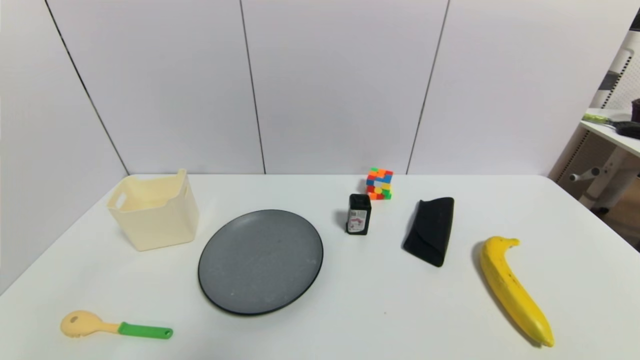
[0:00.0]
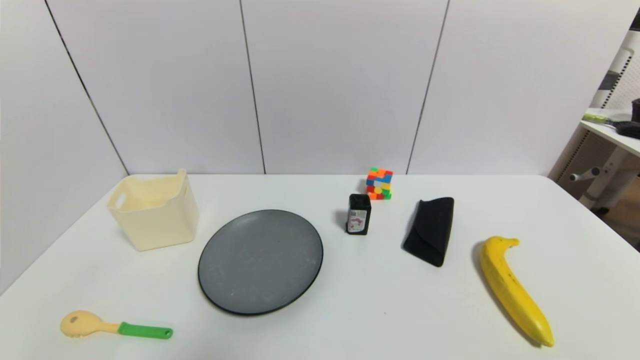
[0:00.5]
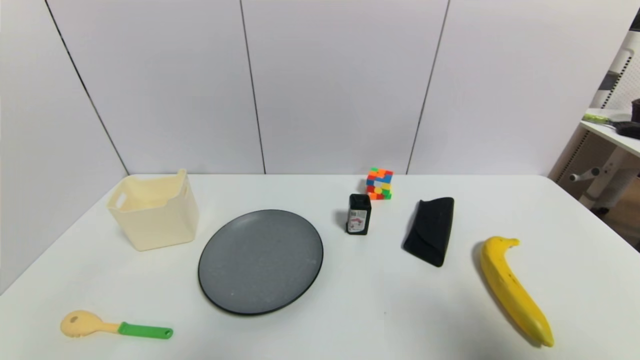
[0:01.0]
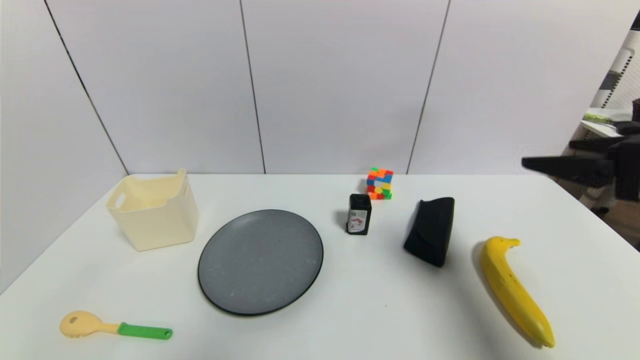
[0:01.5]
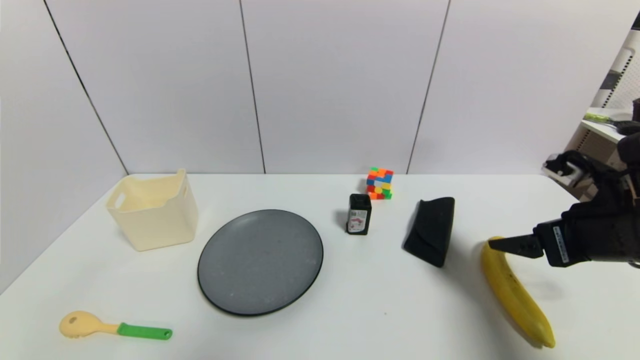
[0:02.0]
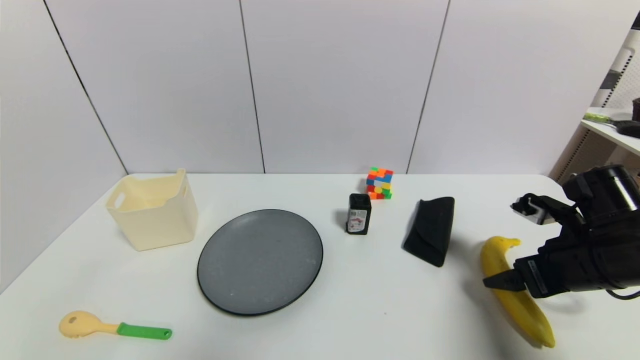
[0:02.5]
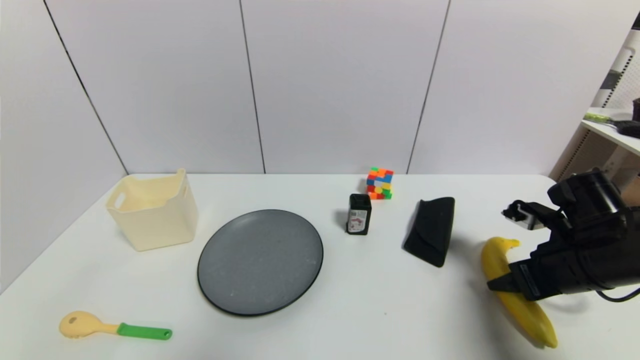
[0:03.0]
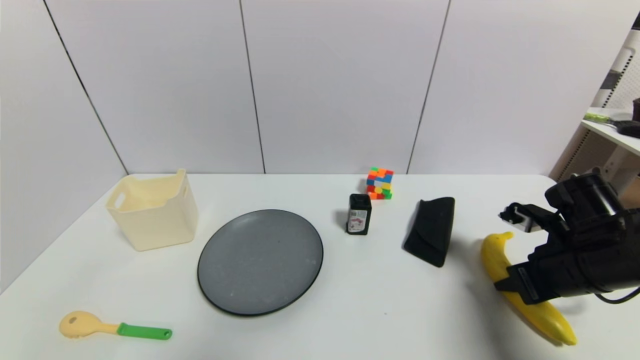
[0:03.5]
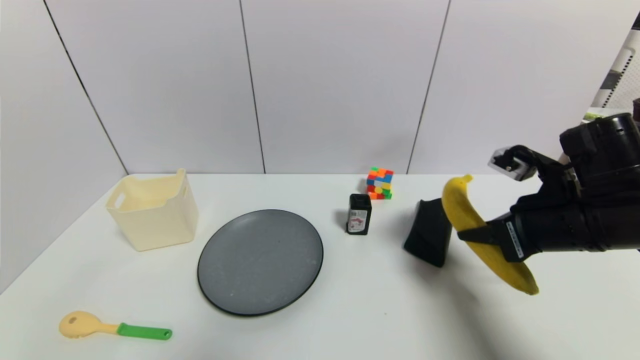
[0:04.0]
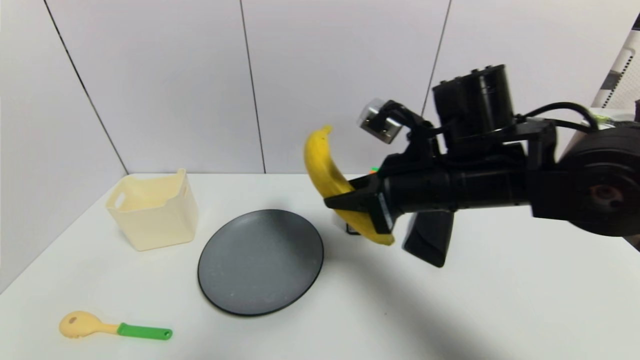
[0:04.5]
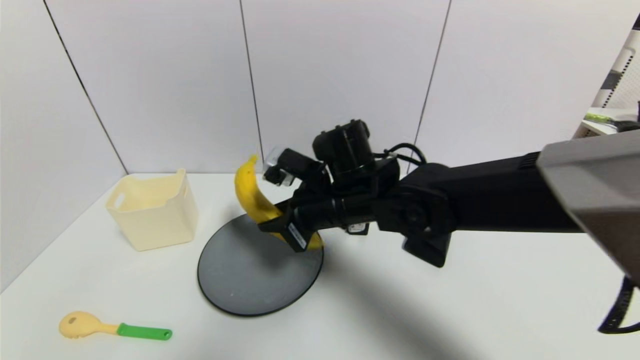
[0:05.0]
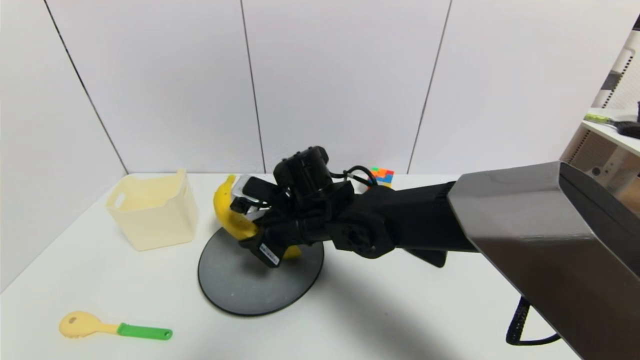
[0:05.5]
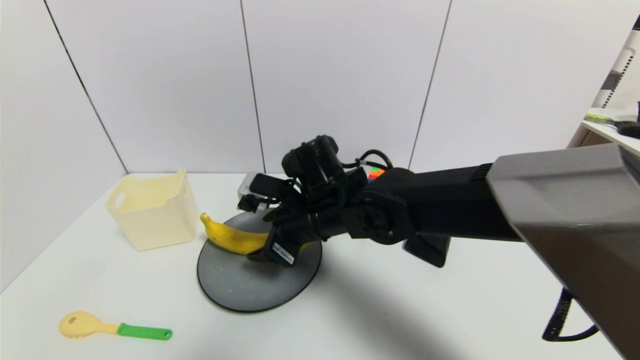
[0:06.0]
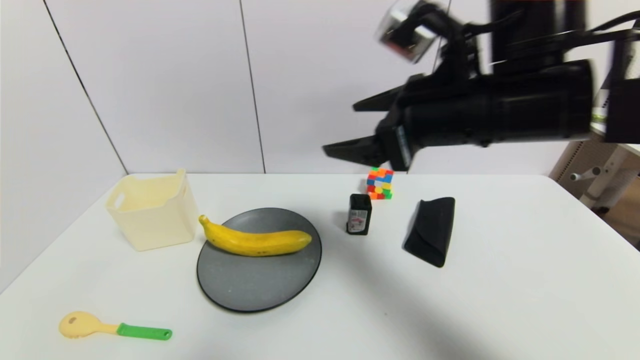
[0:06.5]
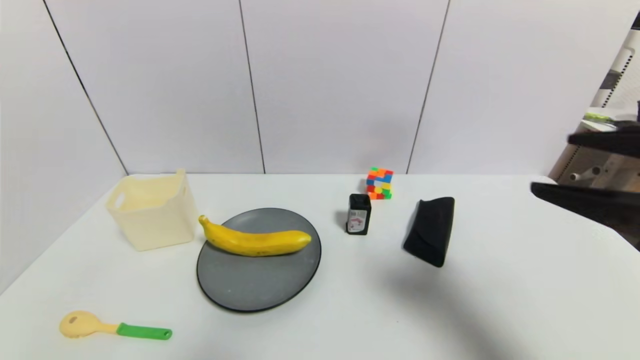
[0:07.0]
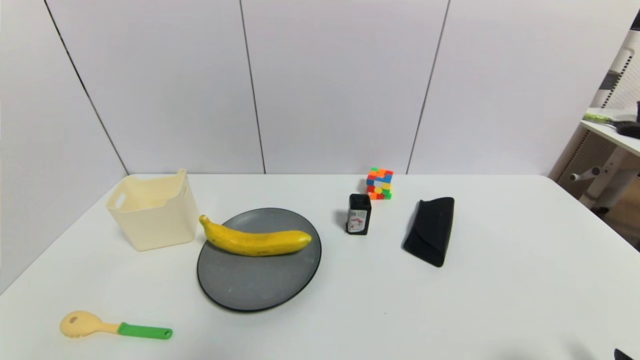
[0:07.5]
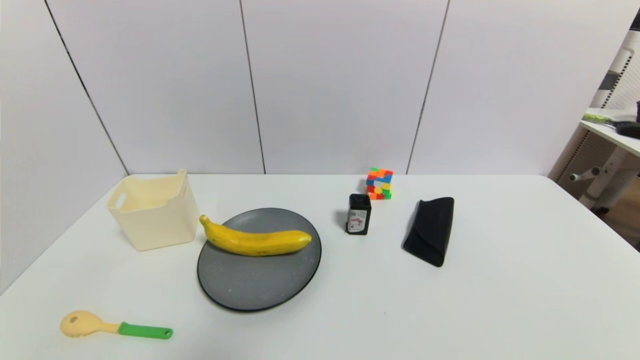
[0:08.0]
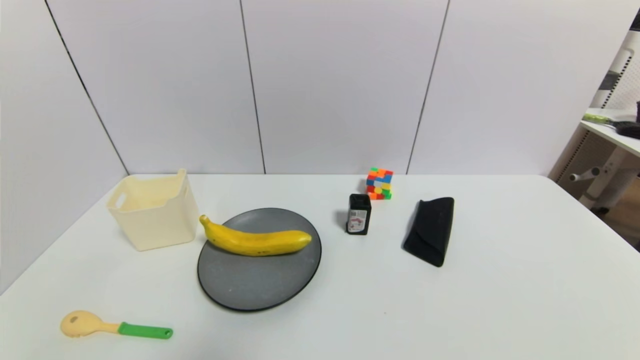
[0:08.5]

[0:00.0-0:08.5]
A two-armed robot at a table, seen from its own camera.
Task of the whole recording: use a gripper to pick the target object and place on the gray plate.
Step, 0:00.0 to 0:03.0: Grasp the banana with the right gripper.
Step, 0:03.5 to 0:06.0: Place the banana on the gray plate with the right gripper.
0:00.0 to 0:02.0: The right gripper heads forward and upward, covering approximately 25 cm.
0:02.0 to 0:04.0: The right gripper moves some 5 cm, and closes up.
0:04.0 to 0:06.5: The right gripper shifts about 20 cm to the left and upward, and opens.
0:06.5 to 0:08.5: The right gripper moves backward, downward and to the right, approximately 40 cm.
